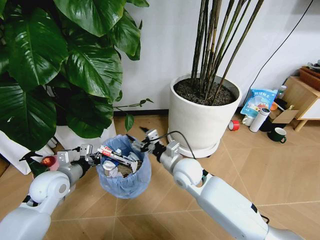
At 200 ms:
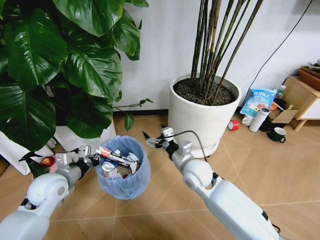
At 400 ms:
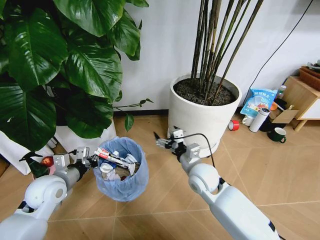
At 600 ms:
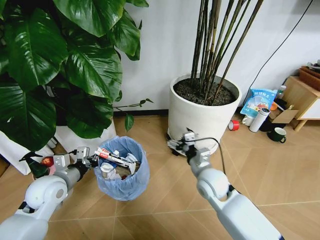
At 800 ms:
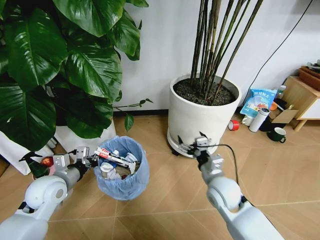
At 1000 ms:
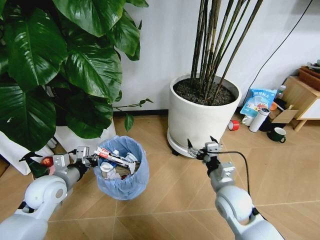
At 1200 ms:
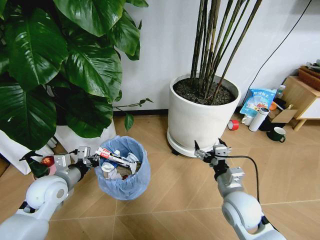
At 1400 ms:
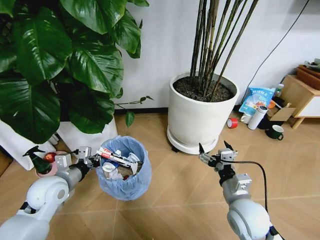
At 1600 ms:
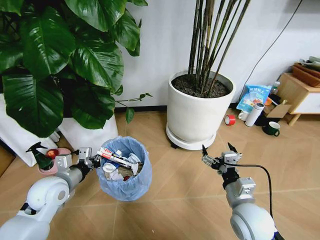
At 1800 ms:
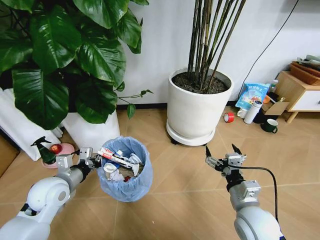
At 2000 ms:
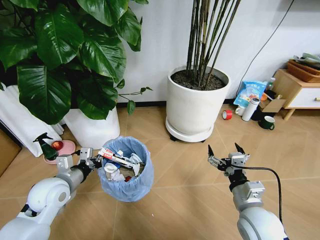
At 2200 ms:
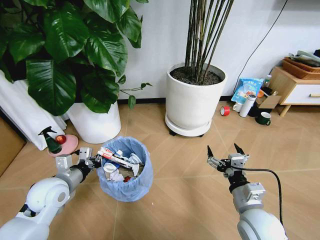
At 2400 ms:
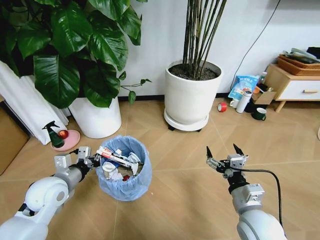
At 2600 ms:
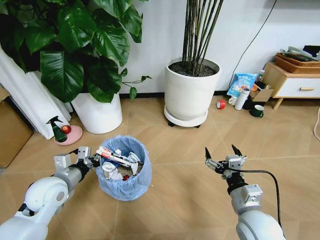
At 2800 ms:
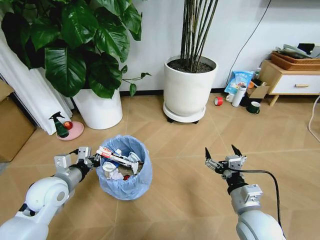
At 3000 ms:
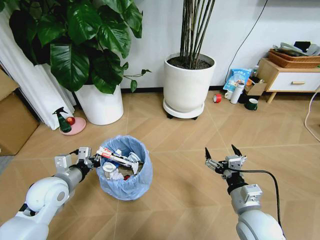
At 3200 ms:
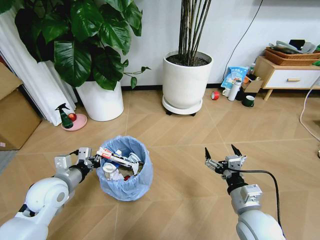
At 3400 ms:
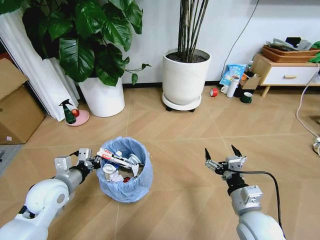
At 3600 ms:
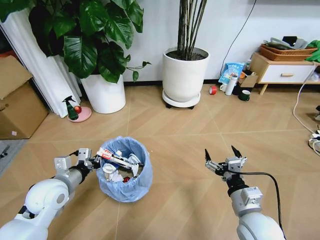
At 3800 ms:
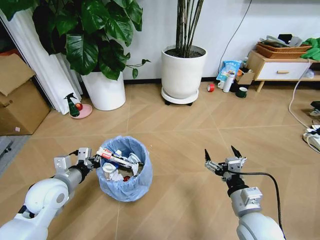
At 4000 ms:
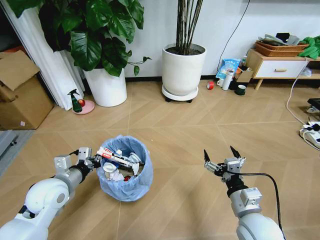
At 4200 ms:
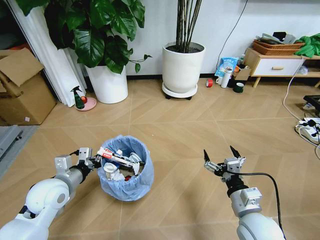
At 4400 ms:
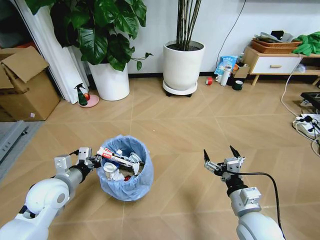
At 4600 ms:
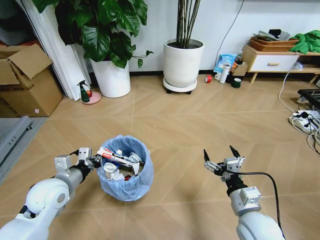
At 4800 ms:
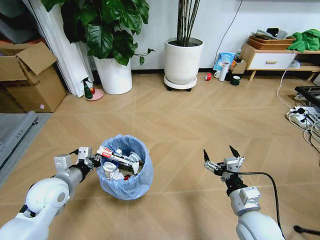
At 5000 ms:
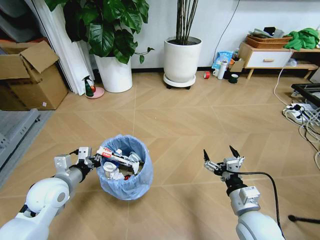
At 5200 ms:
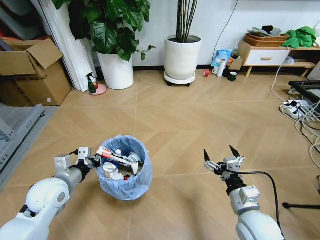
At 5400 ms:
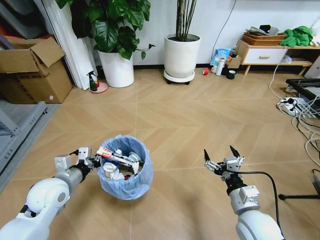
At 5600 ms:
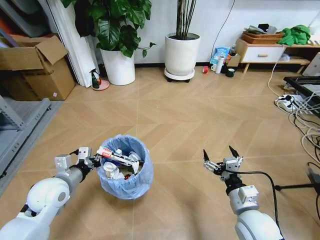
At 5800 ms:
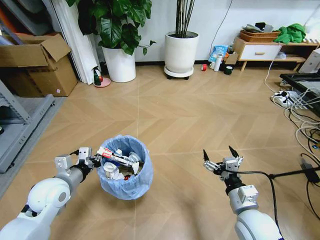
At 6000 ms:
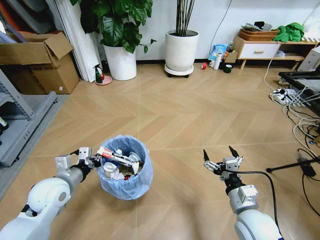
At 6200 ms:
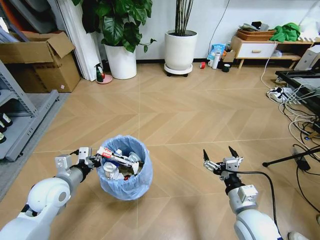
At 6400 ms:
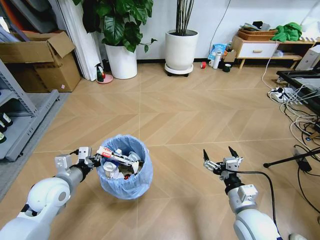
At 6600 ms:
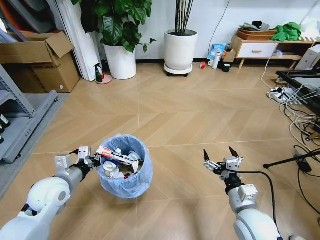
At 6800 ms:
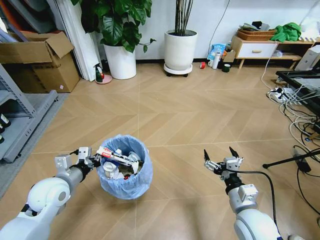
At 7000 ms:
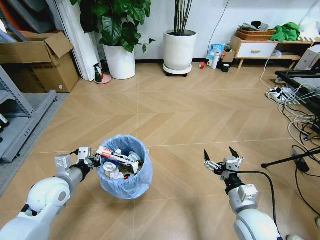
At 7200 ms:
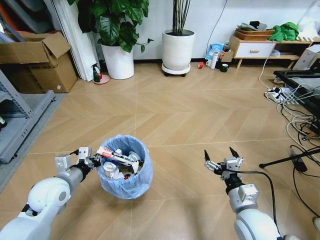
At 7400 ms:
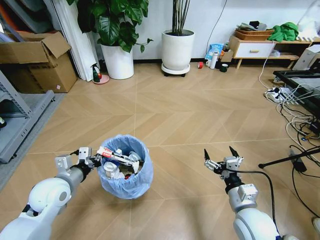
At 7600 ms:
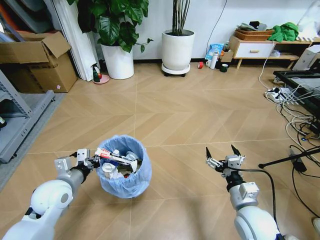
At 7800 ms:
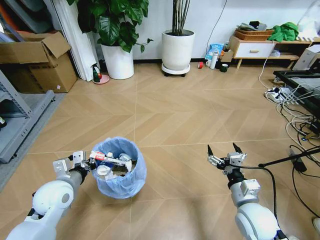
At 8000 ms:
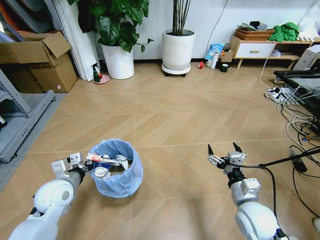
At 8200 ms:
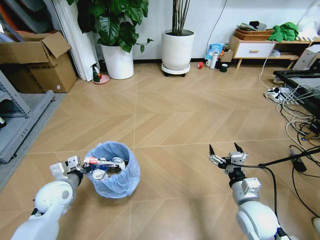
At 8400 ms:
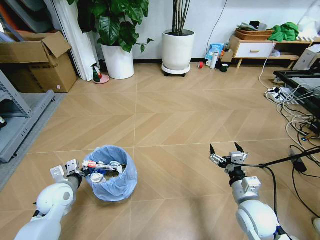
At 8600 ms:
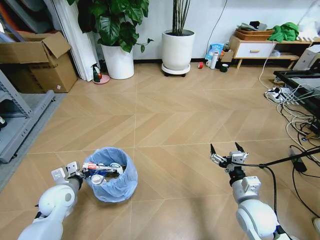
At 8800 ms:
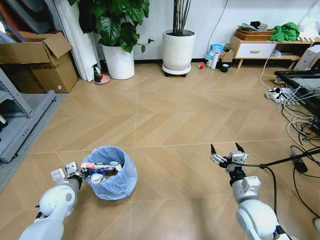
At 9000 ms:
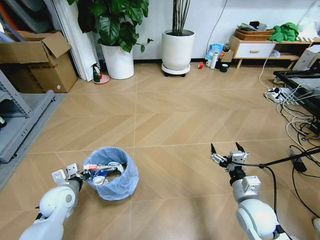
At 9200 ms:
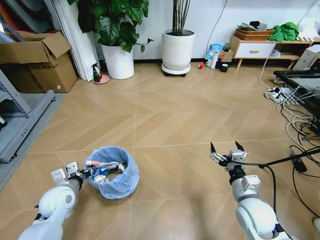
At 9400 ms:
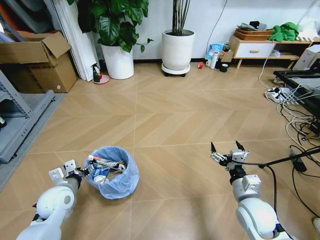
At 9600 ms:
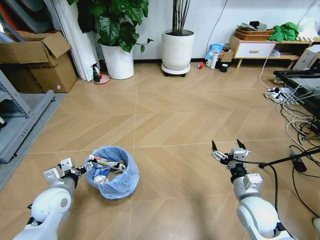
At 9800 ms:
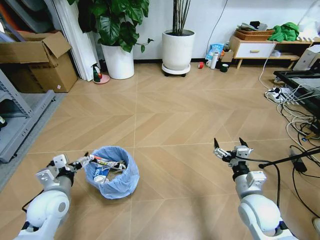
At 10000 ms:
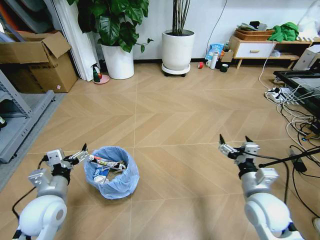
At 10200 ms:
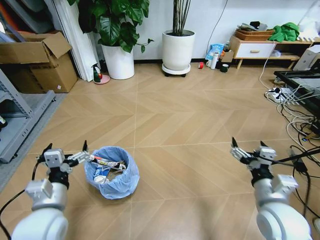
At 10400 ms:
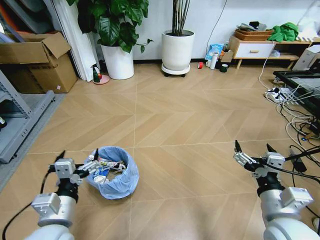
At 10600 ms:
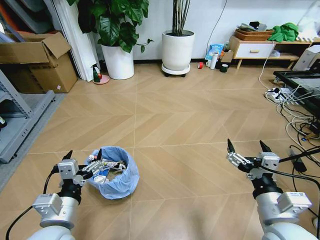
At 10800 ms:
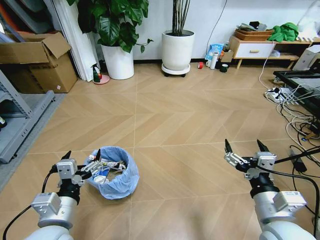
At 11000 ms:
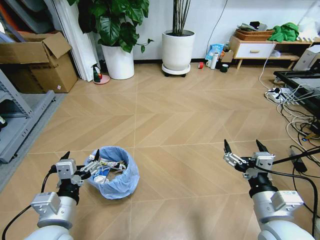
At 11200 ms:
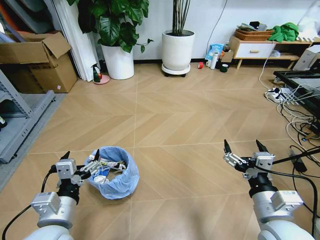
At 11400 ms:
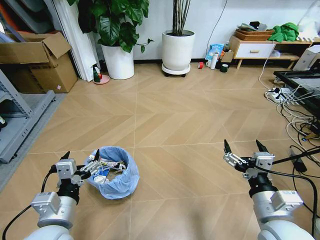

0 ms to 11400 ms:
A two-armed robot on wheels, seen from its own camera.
Task of the whole recording: Pick up the trash bin and place the garbage on the floor into it.
0 ms to 1400 ms: The right gripper is displaced to the right and backward by about 20 cm.
7200 ms to 8600 ms: The left gripper shifts about 5 cm downward.
8600 ms to 10000 ms: The left gripper goes roughly 10 cm upward and backward, and opens up. The right gripper shifts about 5 cm upward.
10000 ms to 11400 ms: The left gripper moves backward and to the right, roughly 10 cm, while the right gripper shifts some 10 cm backward.
